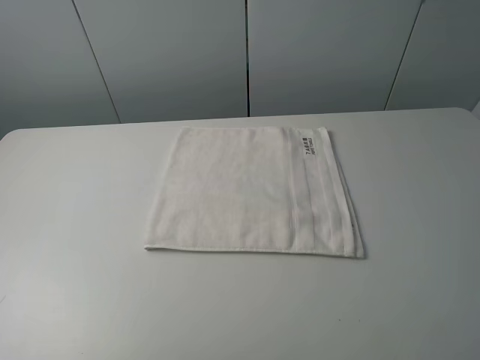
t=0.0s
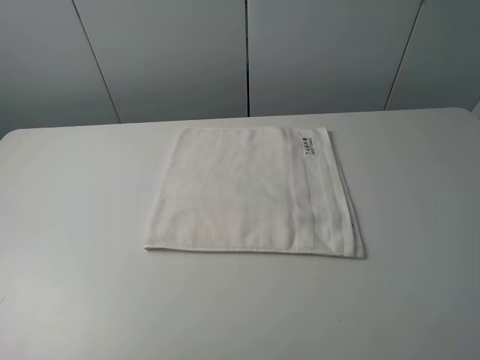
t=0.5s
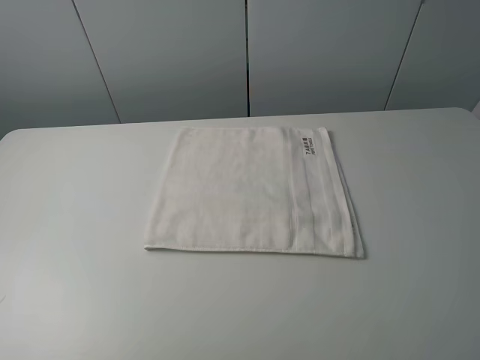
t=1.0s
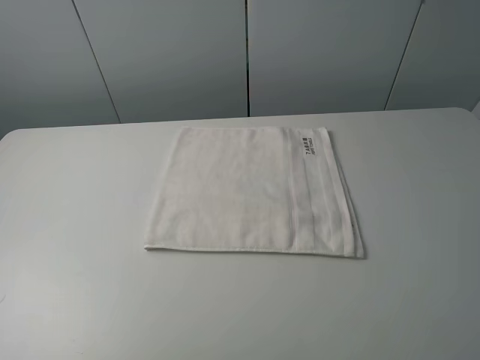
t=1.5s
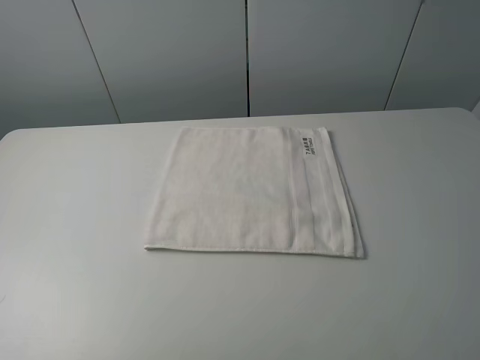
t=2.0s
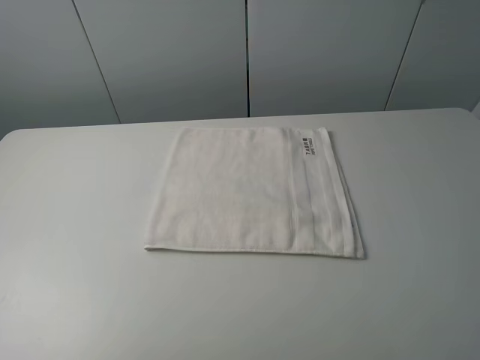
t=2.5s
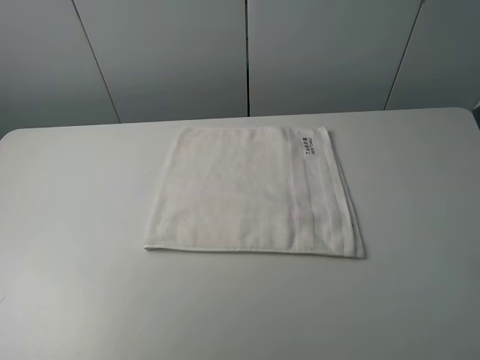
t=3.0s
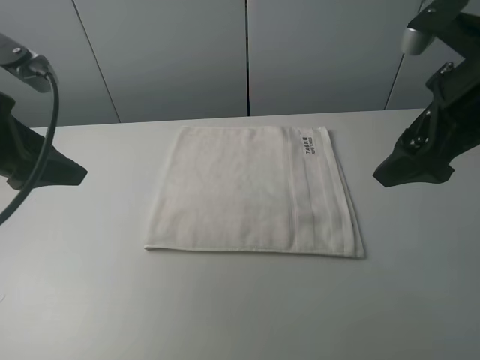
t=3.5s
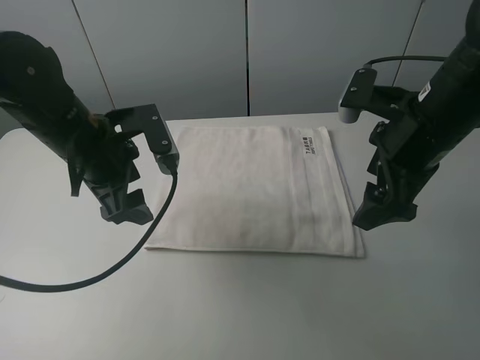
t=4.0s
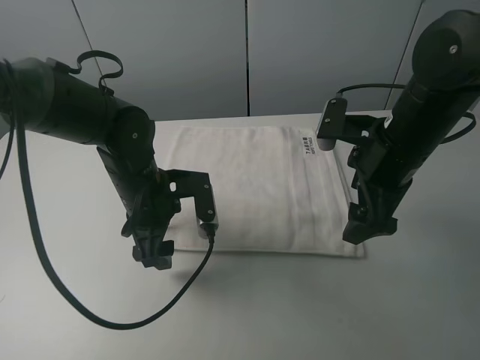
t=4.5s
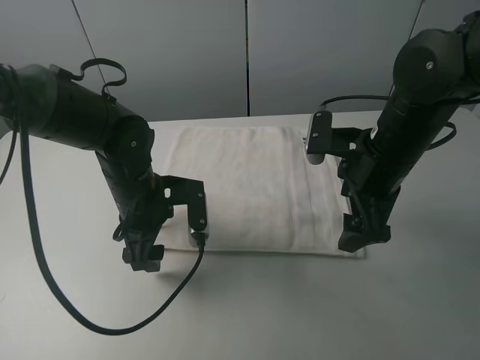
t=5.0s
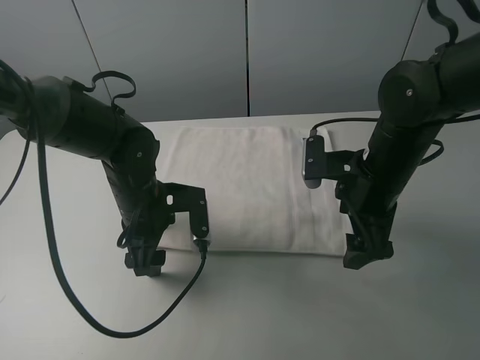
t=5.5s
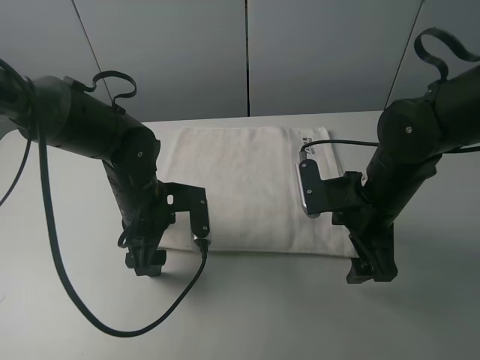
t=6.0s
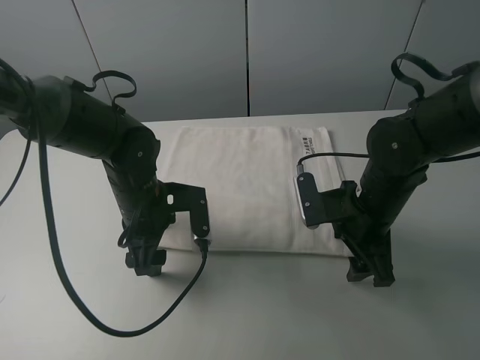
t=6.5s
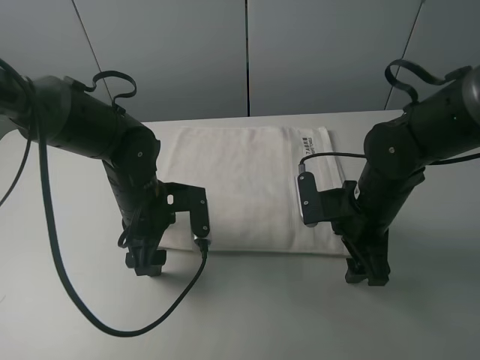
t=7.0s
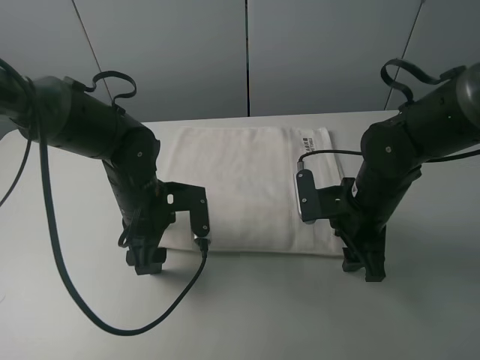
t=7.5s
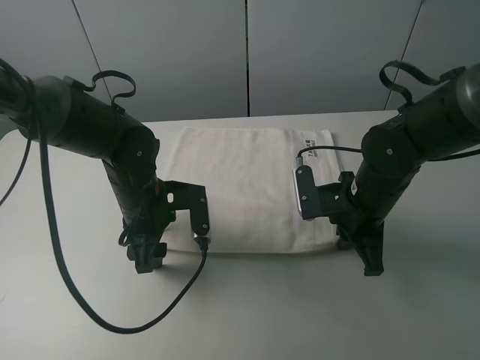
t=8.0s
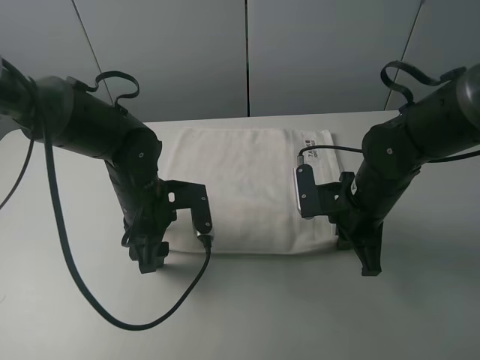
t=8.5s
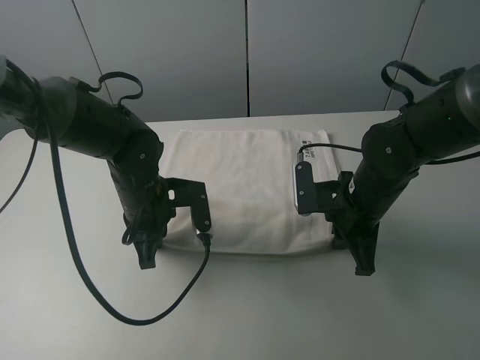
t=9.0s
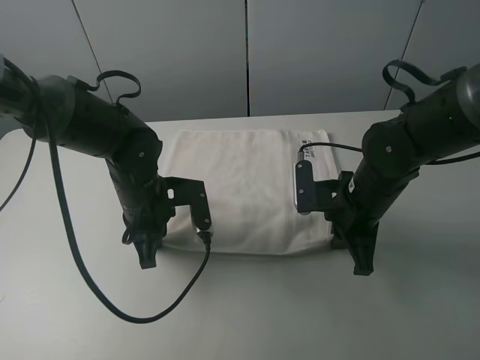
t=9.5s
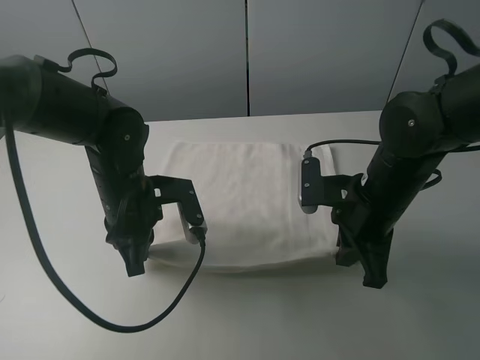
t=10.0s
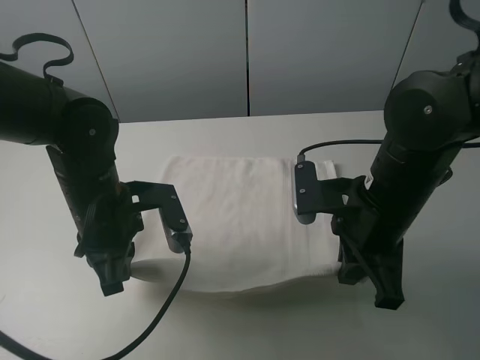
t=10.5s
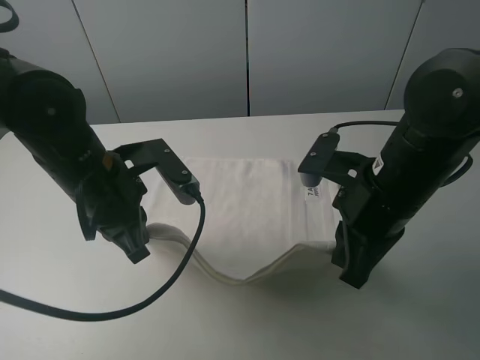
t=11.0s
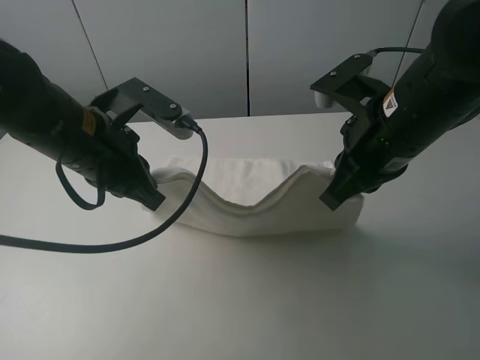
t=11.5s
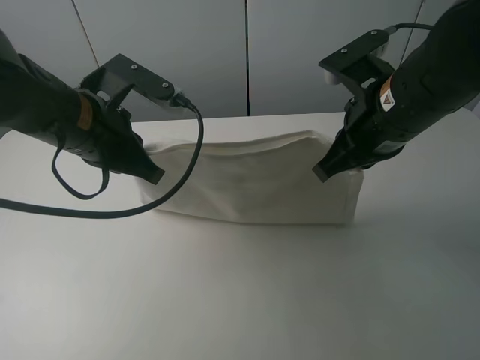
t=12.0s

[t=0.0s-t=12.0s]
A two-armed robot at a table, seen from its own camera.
Task of the whole recording: fold the towels on the table.
Step, t=0.0s to t=7.5s: Grasp the white towel with the right gripper.
Step, t=8.0s to t=8.5s: Grasp the white towel with the left gripper.
t=0.0s to t=2.0s: Both grippers stay put.
t=2.0s to t=4.0s: The left gripper travels forward and to the right by approximately 30 cm; the right gripper moves forward, some 25 cm.
t=4.0s to t=6.0s: Both grippers move downward, roughly 10 cm.
t=6.0s to t=8.0s: The right gripper closes.
t=8.0s to t=10.0s: The left gripper closes up; the right gripper moves approximately 5 cm.
t=10.0s to t=12.0s: The two grippers go some 10 cm upward.

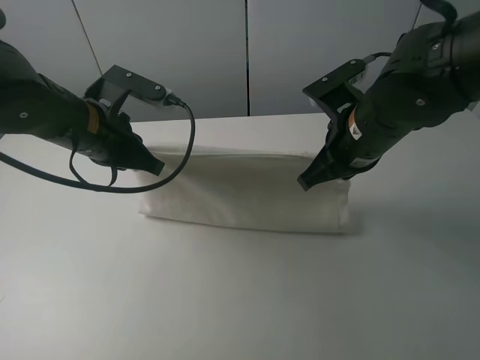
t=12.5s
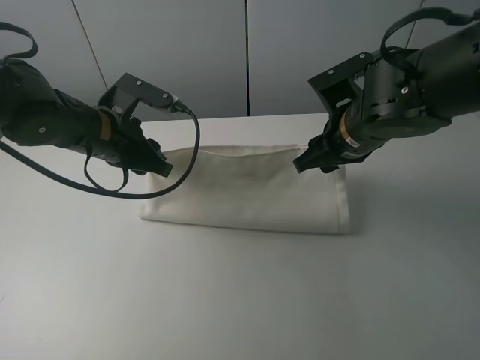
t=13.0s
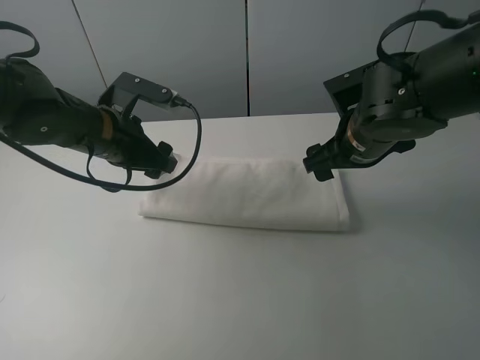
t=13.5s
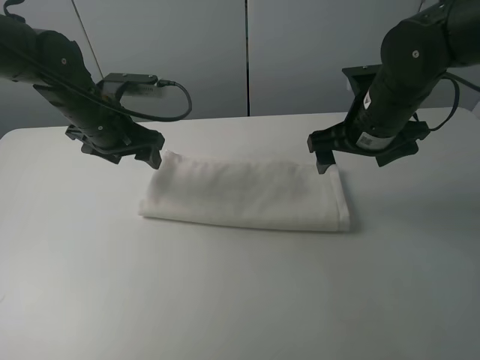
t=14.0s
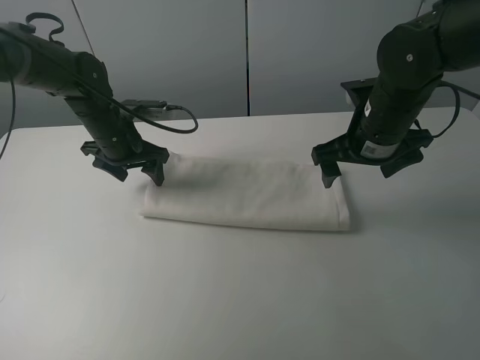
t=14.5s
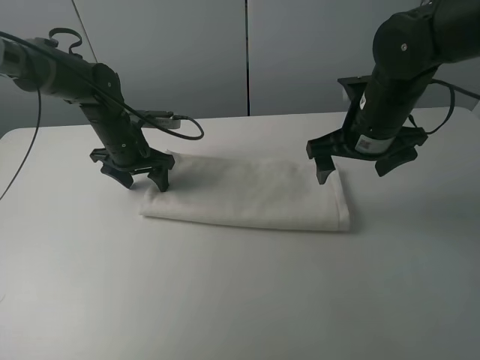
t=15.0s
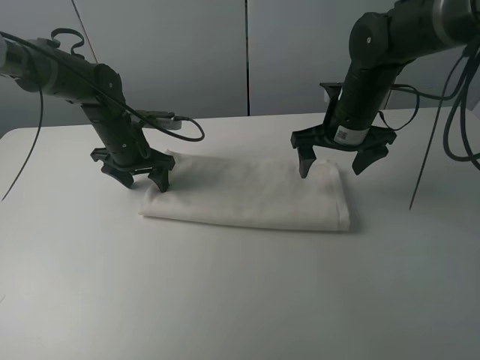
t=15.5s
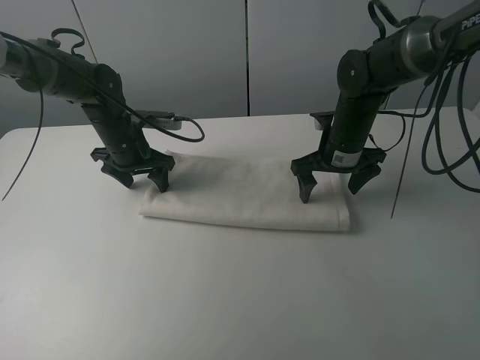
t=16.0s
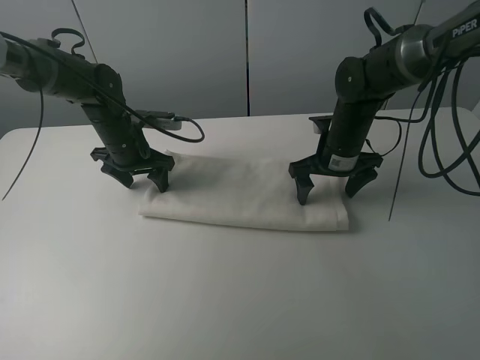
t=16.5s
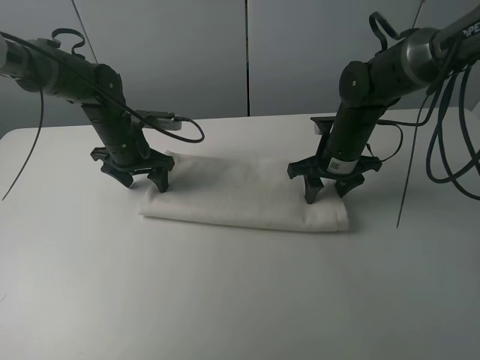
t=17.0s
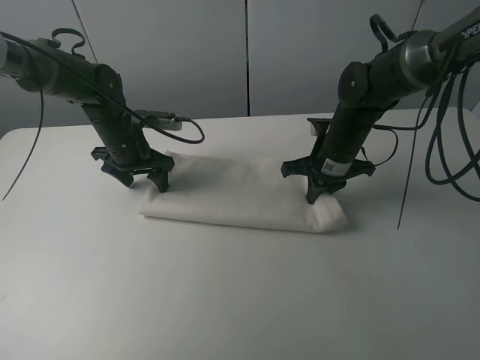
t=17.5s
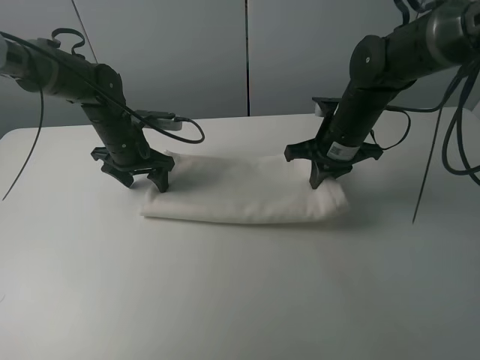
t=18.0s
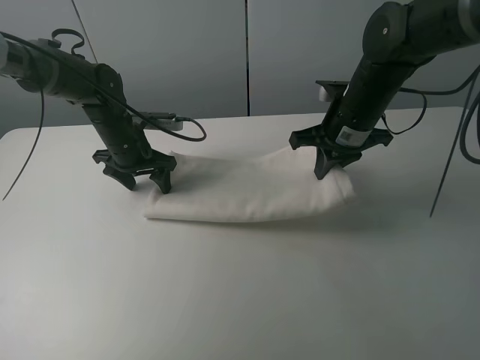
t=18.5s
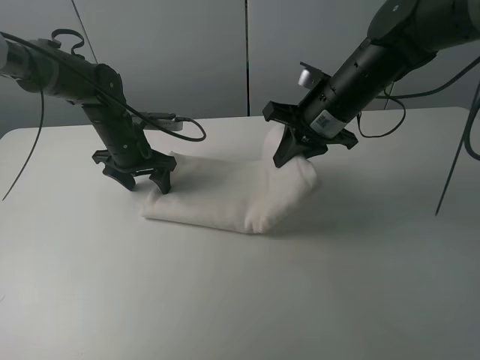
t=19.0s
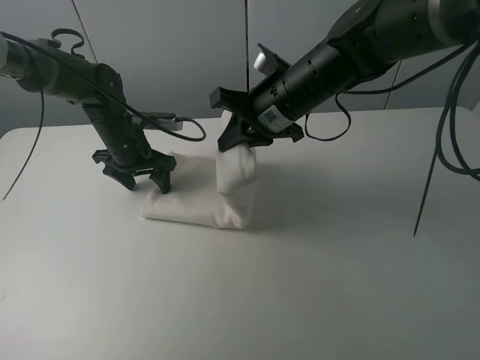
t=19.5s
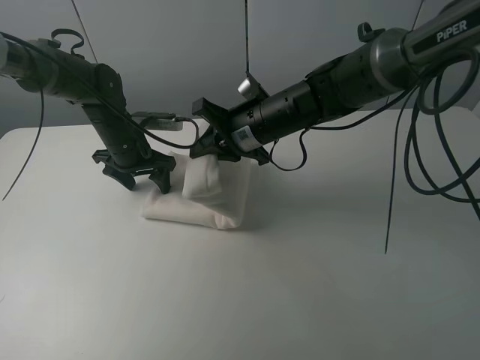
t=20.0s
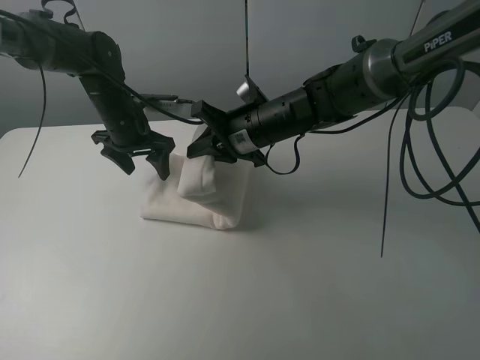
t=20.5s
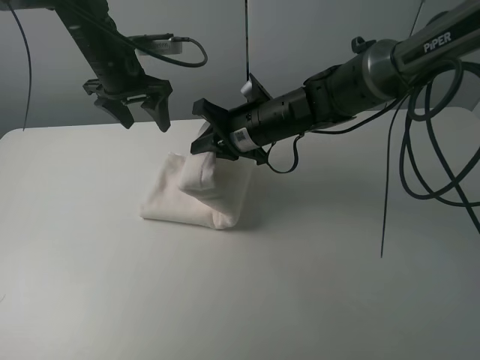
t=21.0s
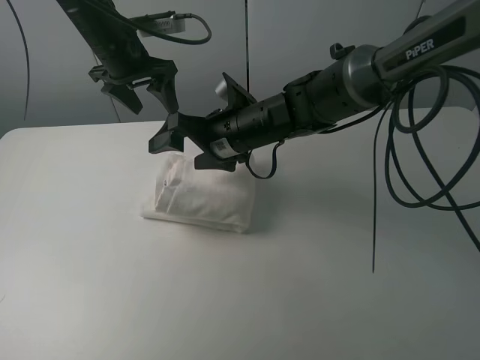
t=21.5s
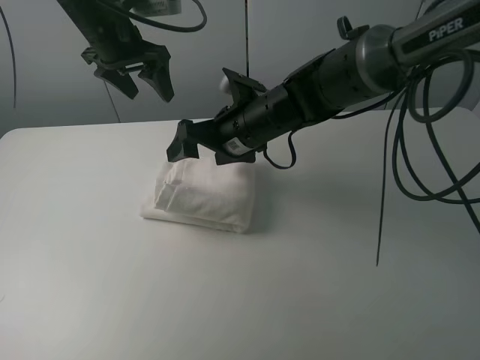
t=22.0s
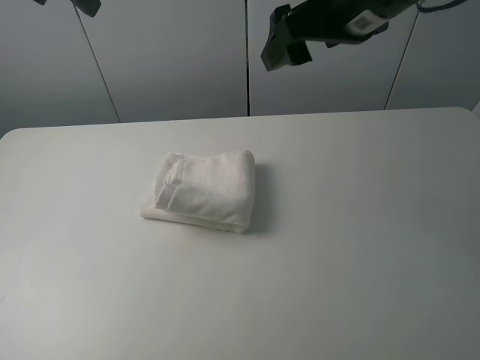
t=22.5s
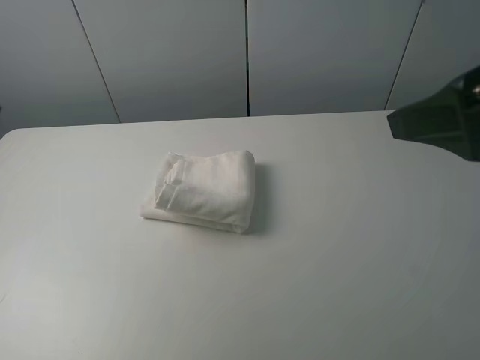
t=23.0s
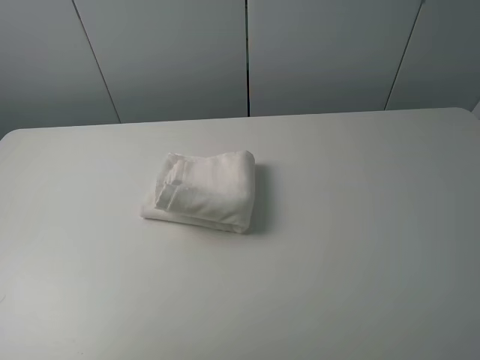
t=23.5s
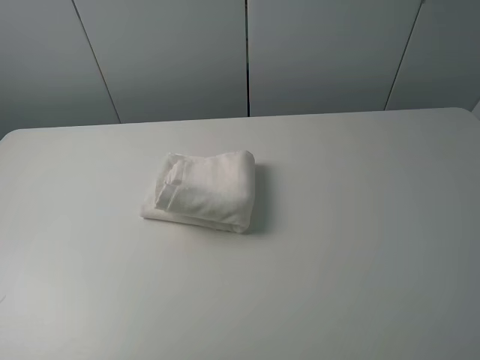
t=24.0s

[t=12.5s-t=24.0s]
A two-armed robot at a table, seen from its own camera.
Task of the whole recording: fold the towels on the table.
Step, t=13.5s to t=14.5s: Press on the white towel with the left gripper.
Step, t=15.0s to t=21.5s: Fold the white towel from right to left with right gripper.
t=12.5s to t=14.5s: The left gripper heads forward and downward, covering some 10 cm, and opens up; the right gripper opens up.
t=14.5s to t=16.5s: The right gripper moves downward and forward, roughly 10 cm.
t=16.5s to t=18.5s: The right gripper heads upward, covering roughly 5 cm, and closes.
t=18.5s to t=20.0s: The right gripper shifts some 10 cm to the left.
t=20.0s to t=22.0s: The left gripper is displaced upward by roughly 20 cm. Meanwhile the right gripper opens its fingers.
t=22.0s to t=24.0s: The right gripper travels backward, to the right and upward by about 50 cm, while the left gripper travels backward by approximately 40 cm.

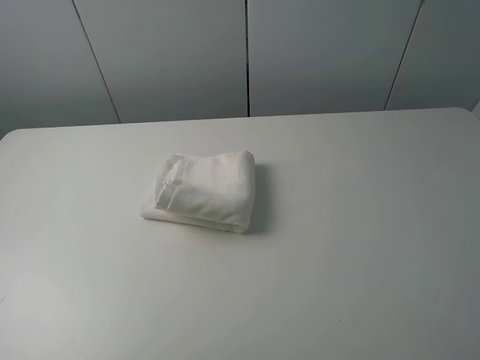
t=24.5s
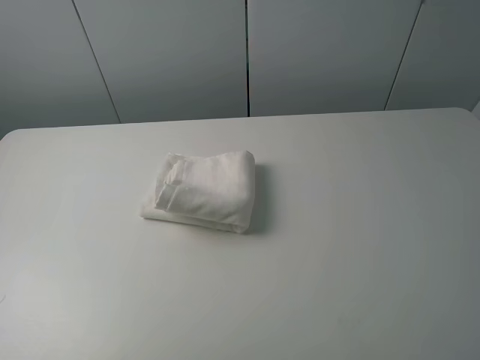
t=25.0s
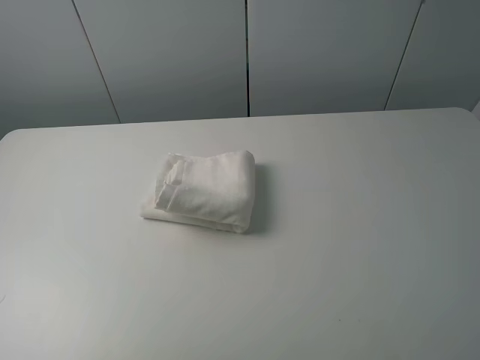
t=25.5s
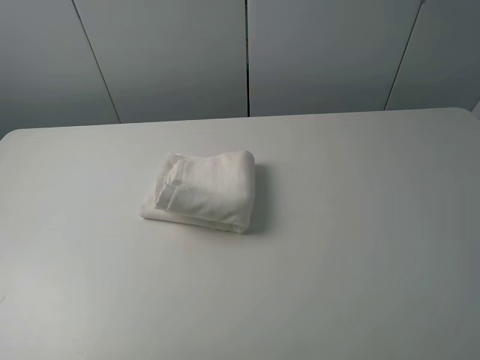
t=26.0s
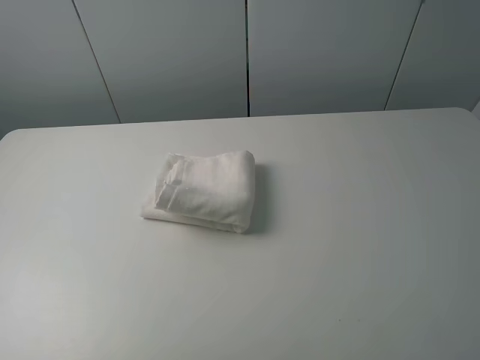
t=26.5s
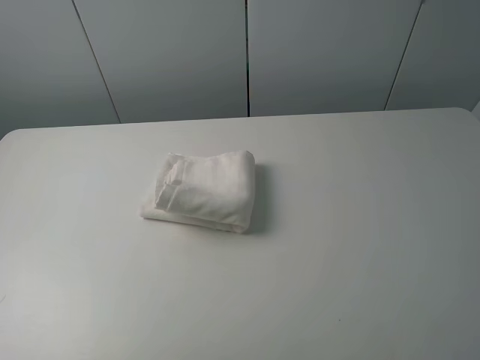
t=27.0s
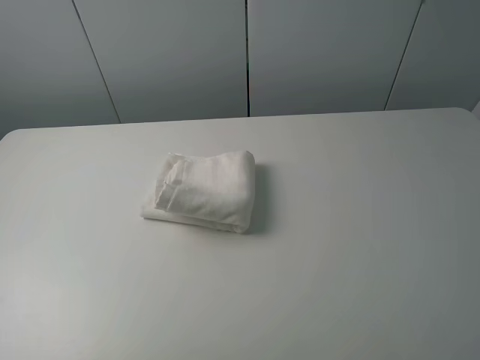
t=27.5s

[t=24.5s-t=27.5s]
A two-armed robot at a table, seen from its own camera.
Task of the whole recording: fold the towels on the table.
t=26.0s to t=27.5s: The two grippers keep their place.
